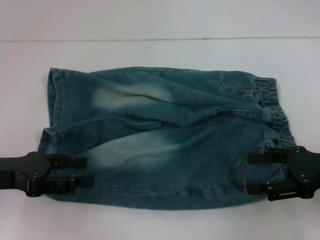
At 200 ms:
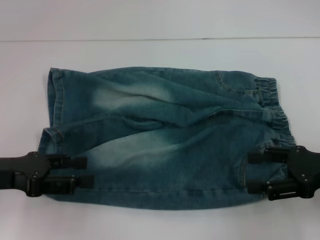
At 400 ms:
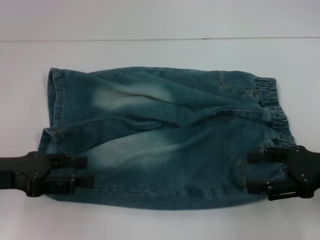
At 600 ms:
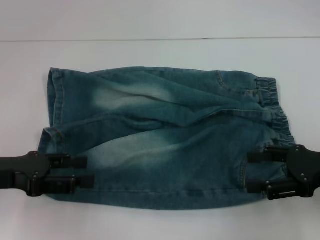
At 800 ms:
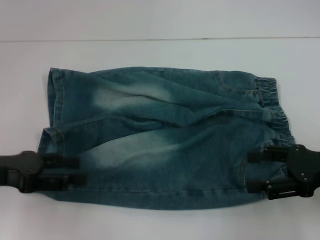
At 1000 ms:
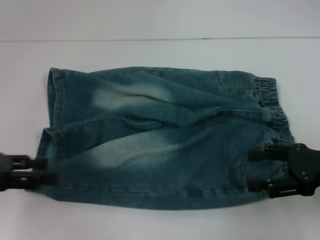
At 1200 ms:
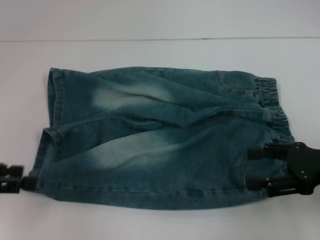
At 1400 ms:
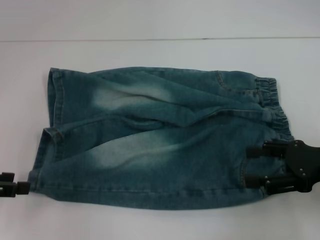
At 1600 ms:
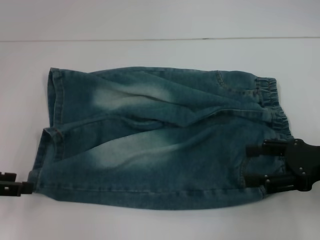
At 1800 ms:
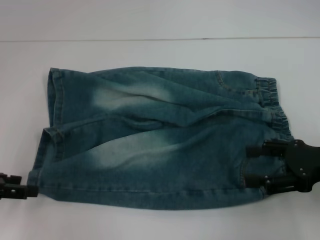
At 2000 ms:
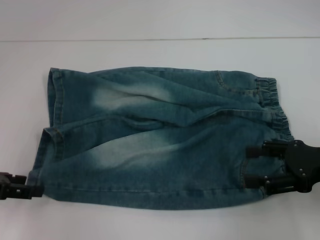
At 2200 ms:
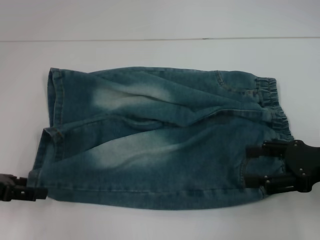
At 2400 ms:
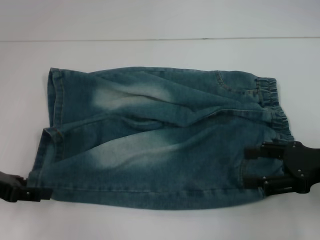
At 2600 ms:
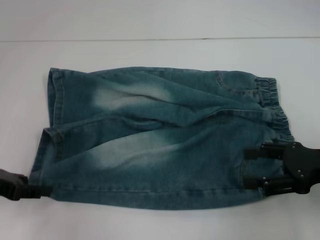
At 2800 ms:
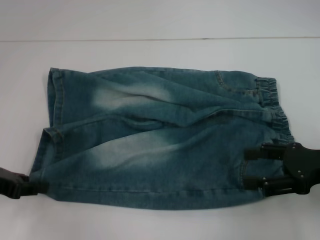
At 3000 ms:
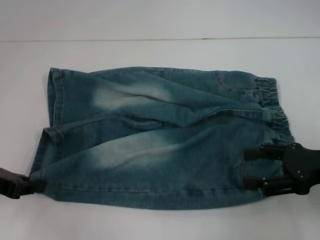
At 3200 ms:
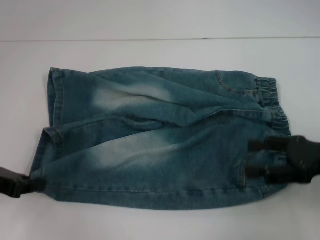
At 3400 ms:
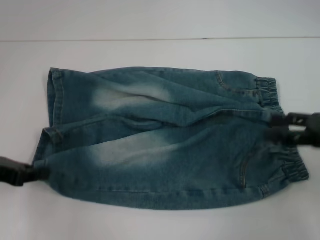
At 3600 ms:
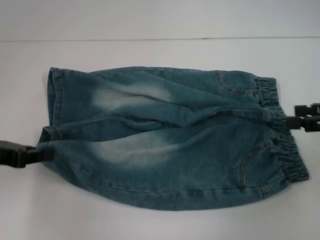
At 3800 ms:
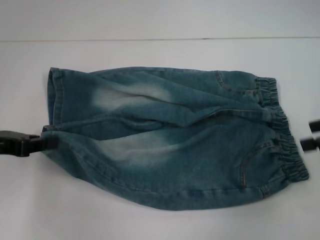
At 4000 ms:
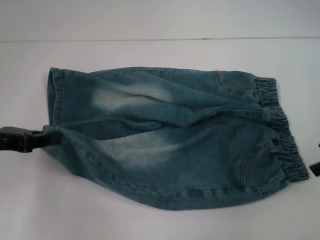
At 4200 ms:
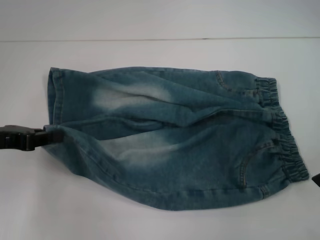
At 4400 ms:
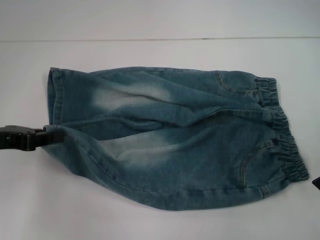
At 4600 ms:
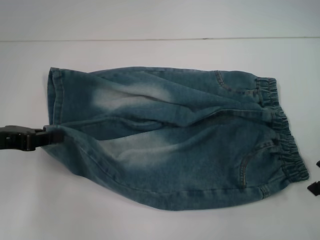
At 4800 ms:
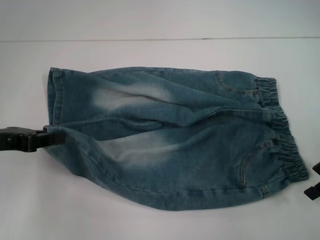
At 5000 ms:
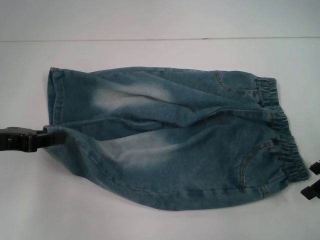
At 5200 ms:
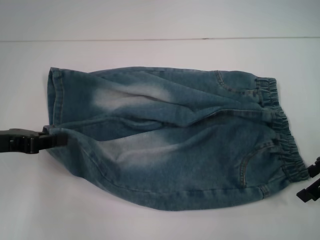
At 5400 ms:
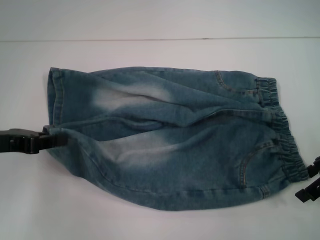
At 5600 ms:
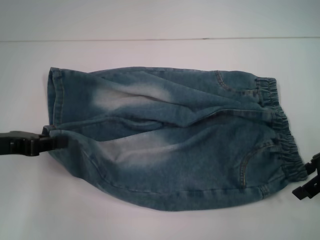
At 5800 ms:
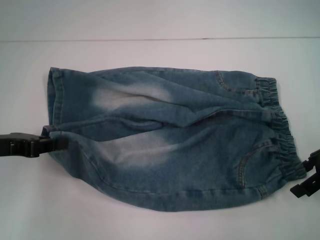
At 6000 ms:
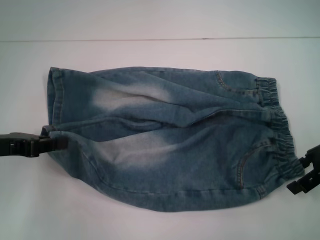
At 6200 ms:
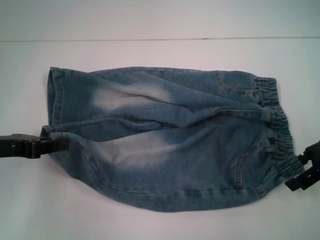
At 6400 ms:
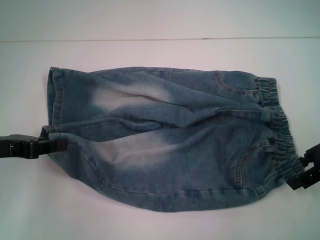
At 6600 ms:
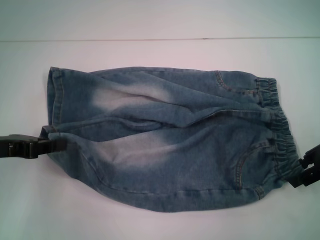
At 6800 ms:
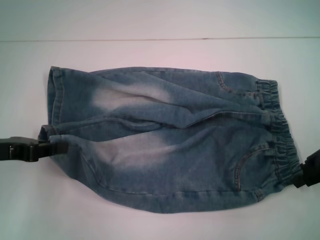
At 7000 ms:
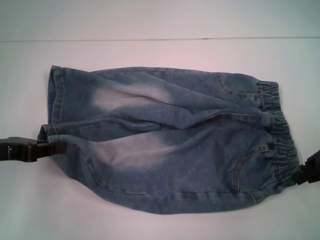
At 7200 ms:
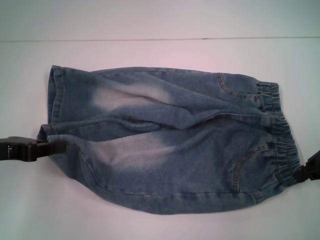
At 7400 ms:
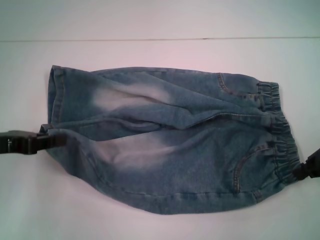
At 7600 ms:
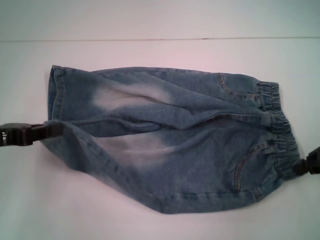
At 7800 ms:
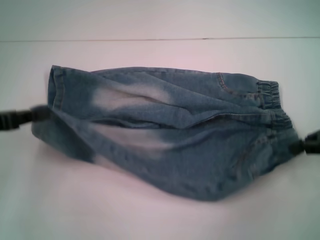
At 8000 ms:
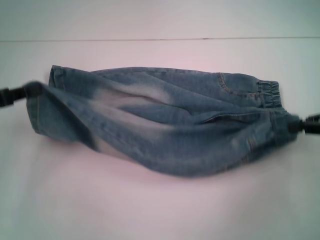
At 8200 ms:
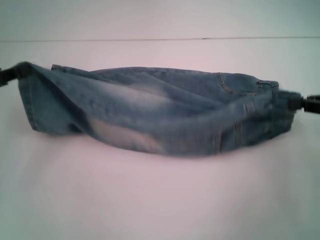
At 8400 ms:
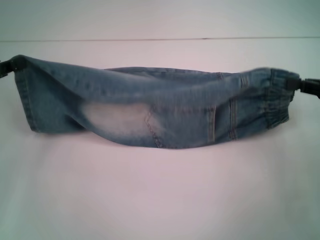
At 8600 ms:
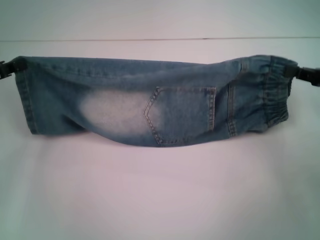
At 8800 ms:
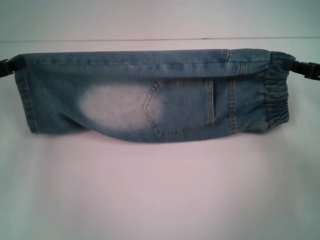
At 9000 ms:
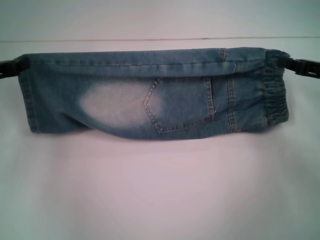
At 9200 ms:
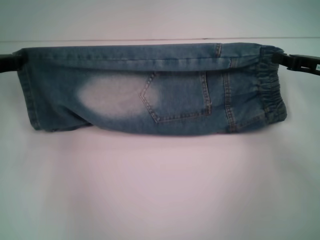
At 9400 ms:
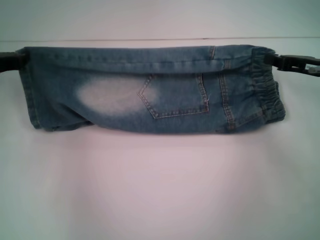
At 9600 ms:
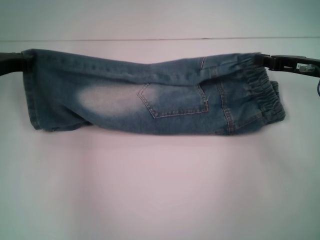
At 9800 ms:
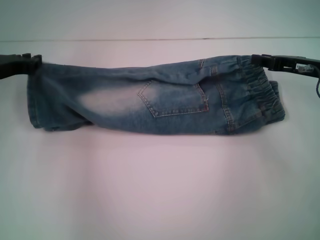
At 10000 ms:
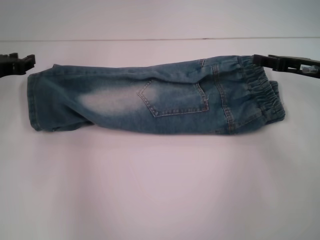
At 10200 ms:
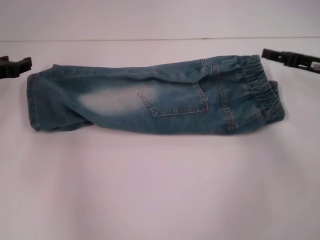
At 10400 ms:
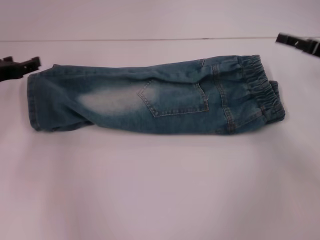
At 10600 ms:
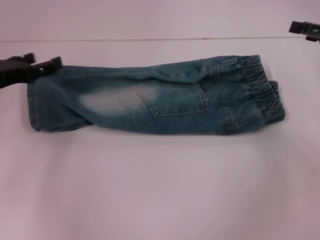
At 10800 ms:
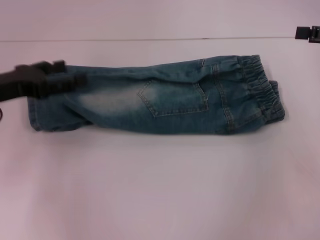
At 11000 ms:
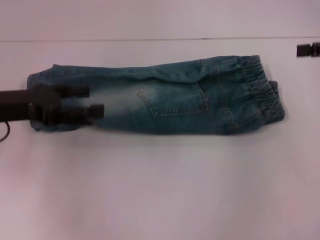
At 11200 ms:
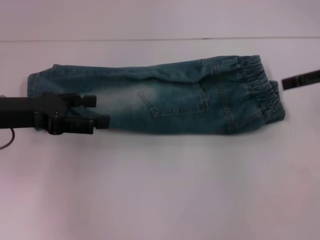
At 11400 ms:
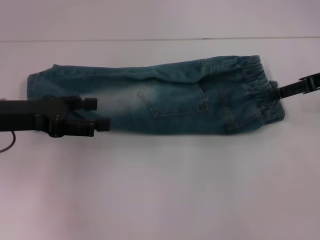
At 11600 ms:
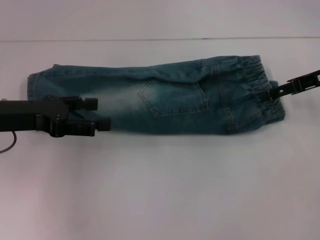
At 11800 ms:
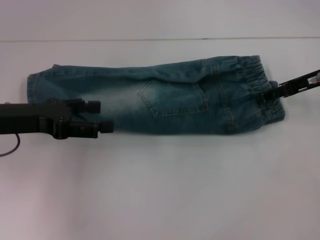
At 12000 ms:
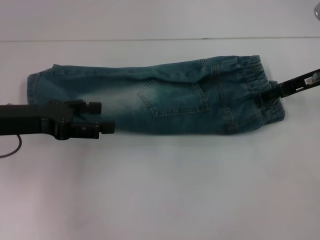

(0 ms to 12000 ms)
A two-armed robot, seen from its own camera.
Step, 0 ms - 3200 ms: Grab the lower left pant leg with your left hand.
Step, 3400 ms - 7000 ms: Hold the lower right waistband with your right hand.
Step, 7200 ms - 9800 ms: Fold upward with your right hand.
0 ms - 1600 ms: The left gripper moves to the left, approximately 5 cm.
1600 ms - 3000 ms: The left gripper closes up.
3000 ms - 4400 ms: The right gripper heads forward, covering about 5 cm.
4400 ms - 6000 ms: The grippers make only small movements.
6000 ms - 7600 ms: The right gripper closes its fingers.
7600 ms - 9000 ms: The left gripper shifts approximately 10 cm forward.
9000 ms - 10400 ms: The right gripper opens up. Meanwhile the left gripper opens up.
10400 ms - 12000 ms: The right gripper reaches roughly 10 cm upward, then returns, while the left gripper goes approximately 5 cm backward, and opens up.

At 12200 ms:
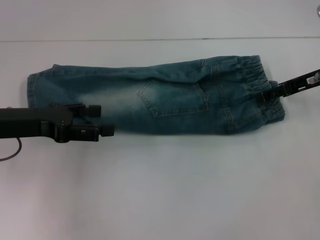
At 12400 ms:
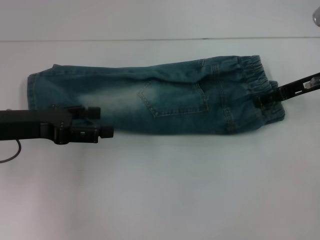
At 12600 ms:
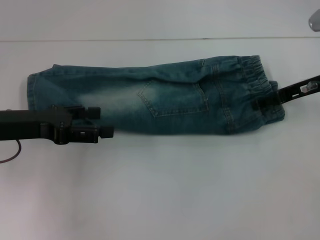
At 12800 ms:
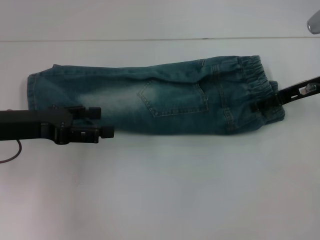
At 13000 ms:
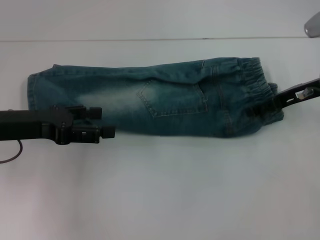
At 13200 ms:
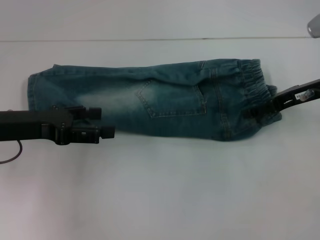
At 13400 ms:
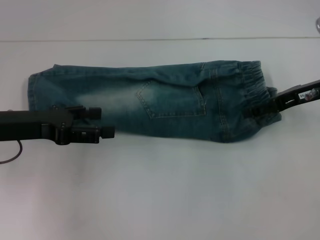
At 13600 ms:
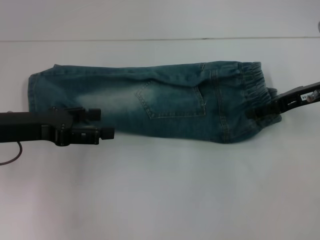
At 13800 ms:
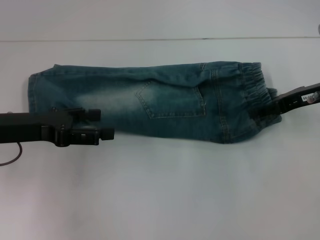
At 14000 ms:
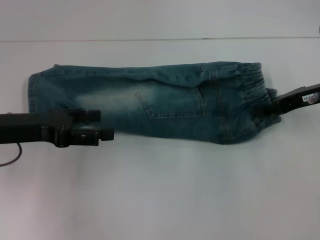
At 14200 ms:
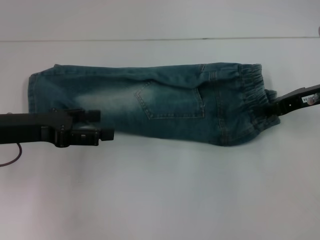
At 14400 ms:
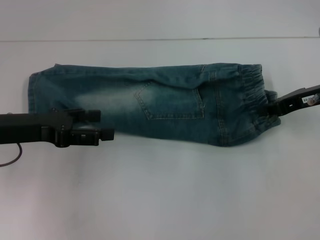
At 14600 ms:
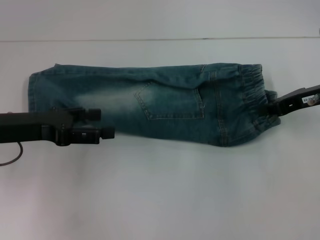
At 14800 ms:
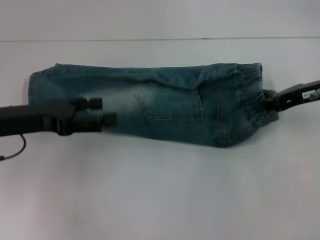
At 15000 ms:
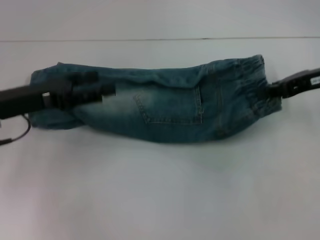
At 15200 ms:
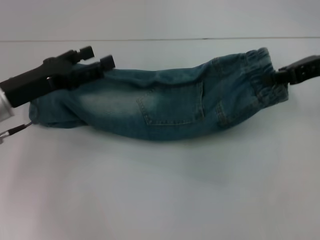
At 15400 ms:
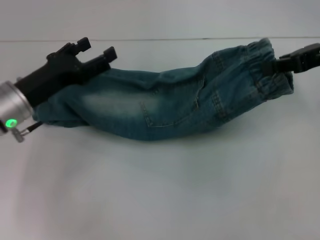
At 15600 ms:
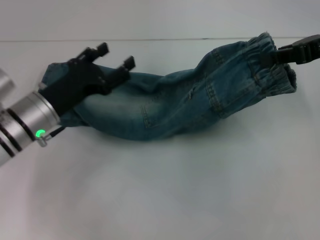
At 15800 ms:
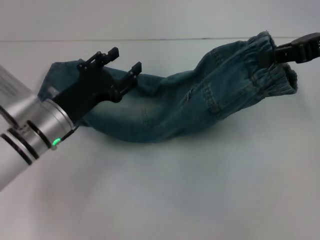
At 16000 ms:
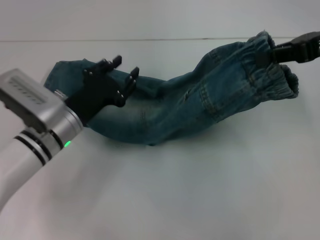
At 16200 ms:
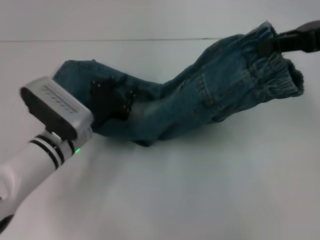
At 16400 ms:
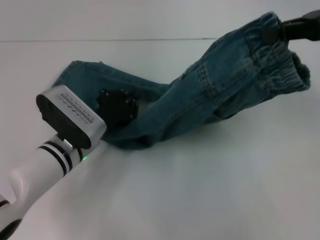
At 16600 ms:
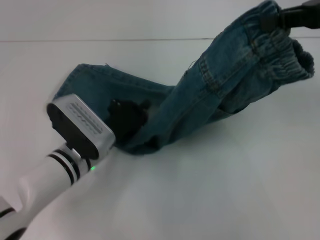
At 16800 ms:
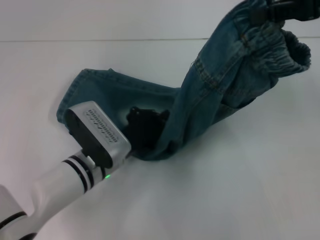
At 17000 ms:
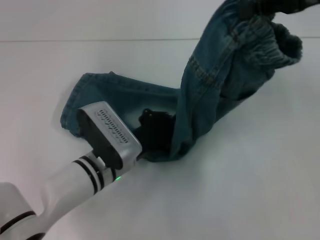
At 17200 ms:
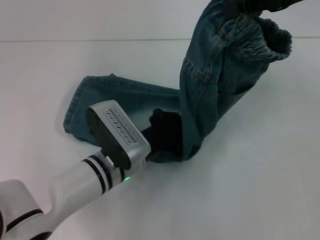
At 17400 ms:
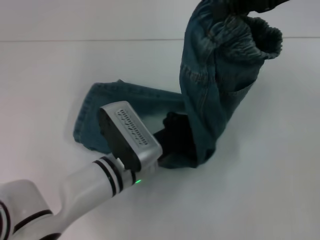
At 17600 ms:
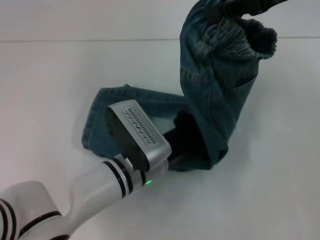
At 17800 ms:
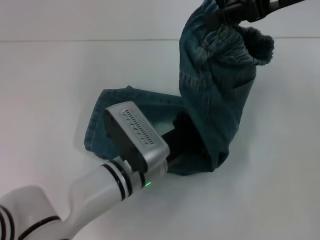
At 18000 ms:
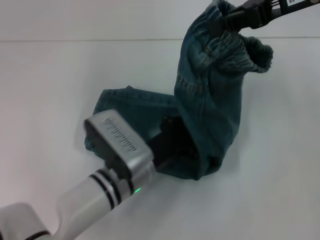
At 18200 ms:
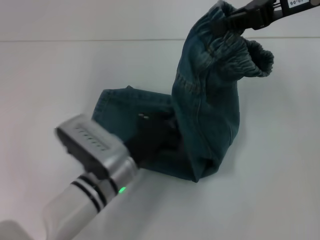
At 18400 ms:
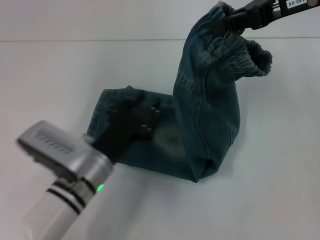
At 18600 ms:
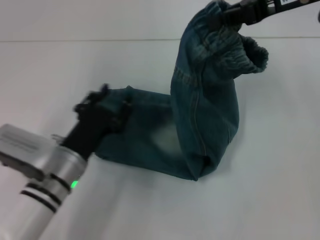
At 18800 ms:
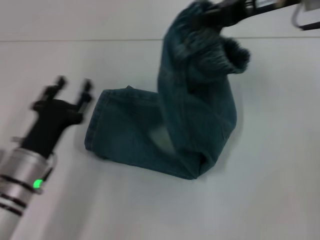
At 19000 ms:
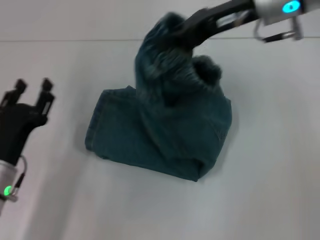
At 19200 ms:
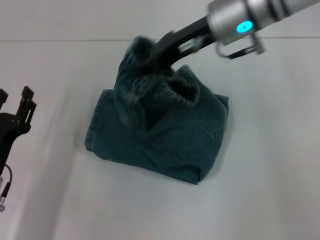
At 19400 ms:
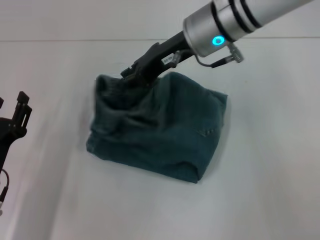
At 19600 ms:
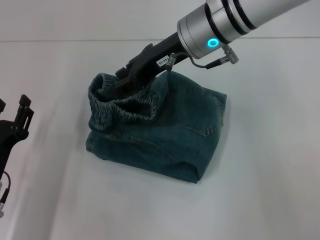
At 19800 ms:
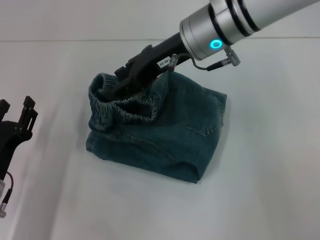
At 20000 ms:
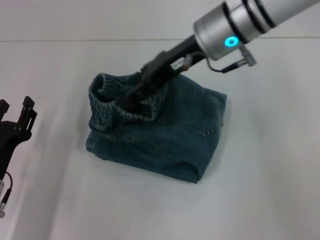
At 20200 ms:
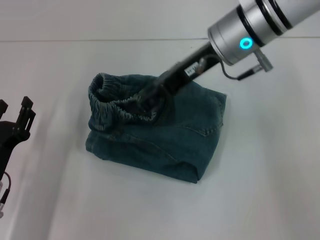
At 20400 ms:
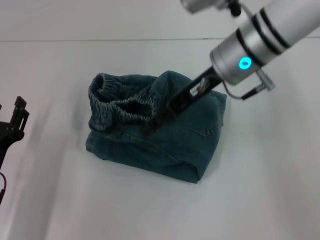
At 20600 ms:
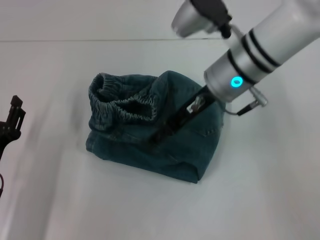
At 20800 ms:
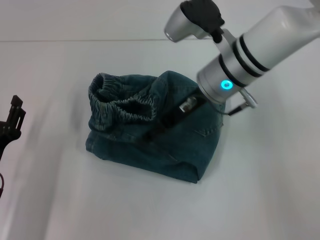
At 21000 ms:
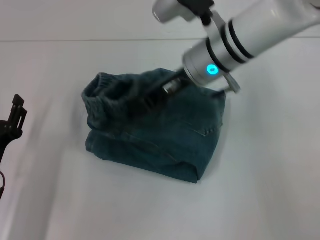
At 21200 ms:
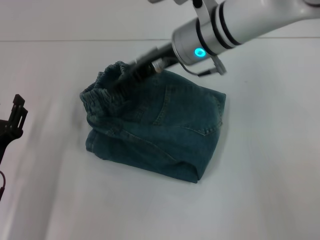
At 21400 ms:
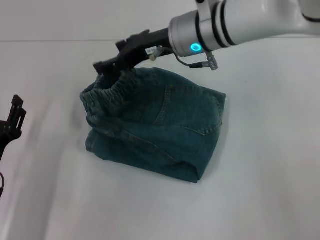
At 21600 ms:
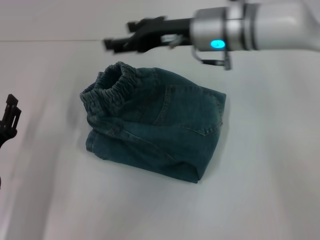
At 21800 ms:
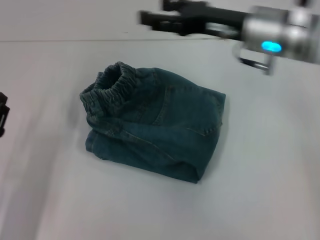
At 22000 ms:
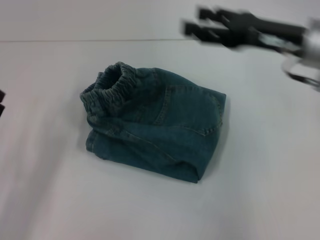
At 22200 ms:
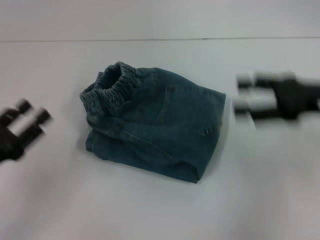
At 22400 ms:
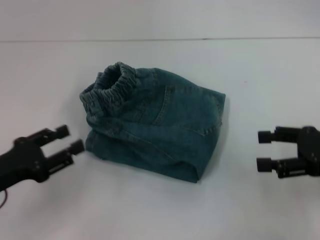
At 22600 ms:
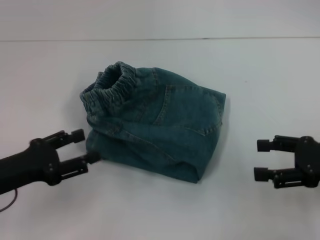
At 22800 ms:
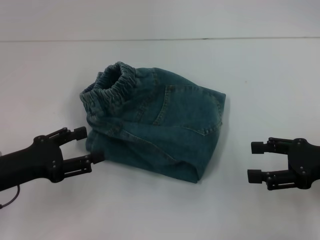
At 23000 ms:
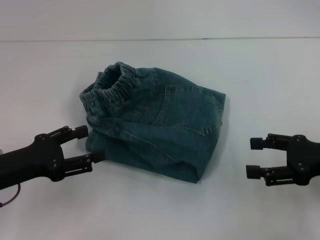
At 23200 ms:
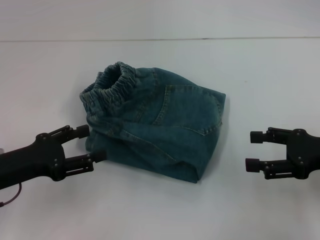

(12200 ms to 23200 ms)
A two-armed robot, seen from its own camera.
Step, 13600 ms - 17800 ms: Press the middle of the pants with your left hand.
Step, 18000 ms - 21200 ms: Fold to the left with your right hand.
12200 ms - 13800 ms: The grippers stay close to where they were, moving slightly.
13800 ms - 15400 ms: The left gripper changes place by some 5 cm. The right gripper shifts approximately 10 cm upward, and closes.
15400 ms - 17000 ms: The right gripper travels upward by some 5 cm. The left gripper heads to the right and downward, covering some 15 cm, and closes up.
18400 ms - 20000 ms: The grippers both shift to the left by approximately 15 cm. The left gripper opens up, while the right gripper opens.
21600 ms - 23200 ms: The right gripper goes roughly 25 cm to the right and backward. Meanwhile the left gripper shifts approximately 5 cm upward.
